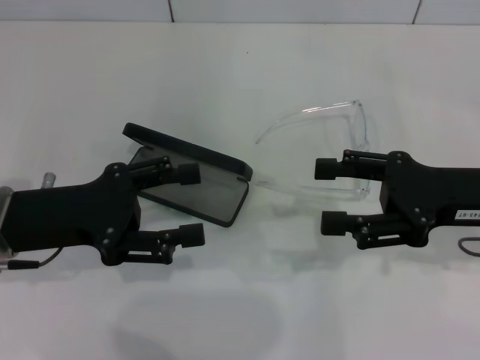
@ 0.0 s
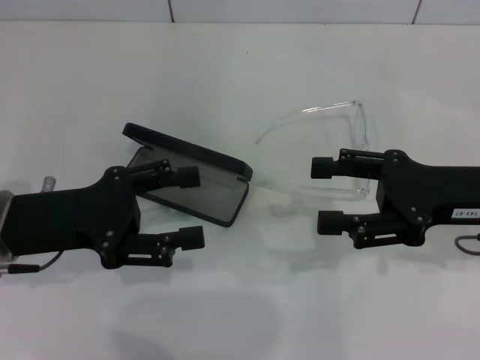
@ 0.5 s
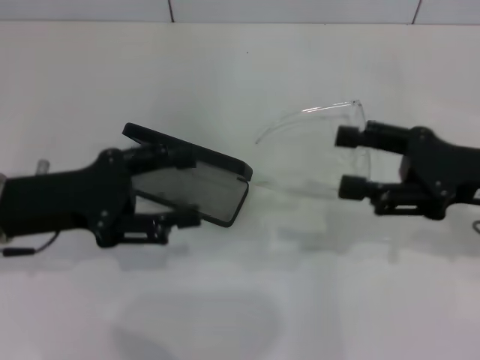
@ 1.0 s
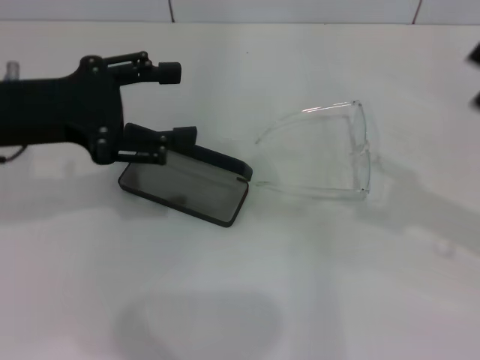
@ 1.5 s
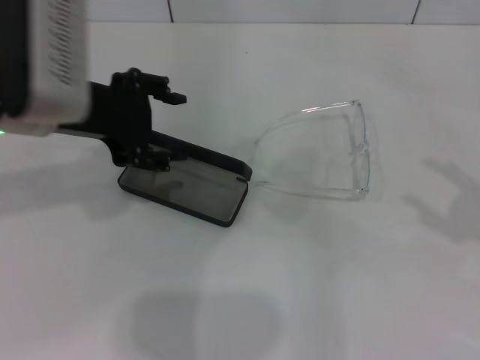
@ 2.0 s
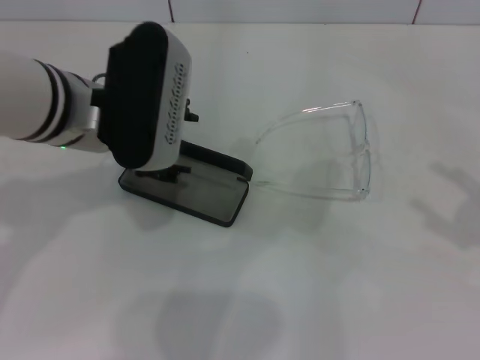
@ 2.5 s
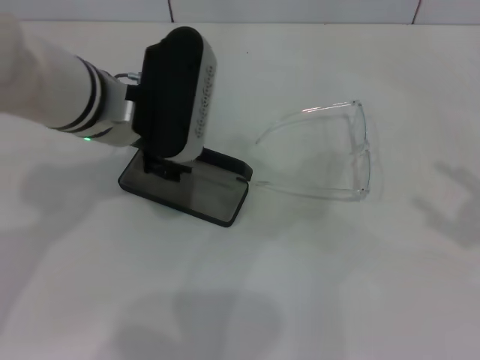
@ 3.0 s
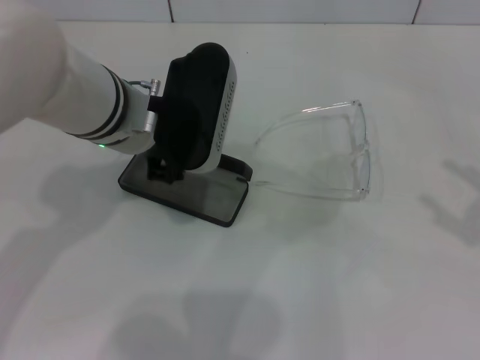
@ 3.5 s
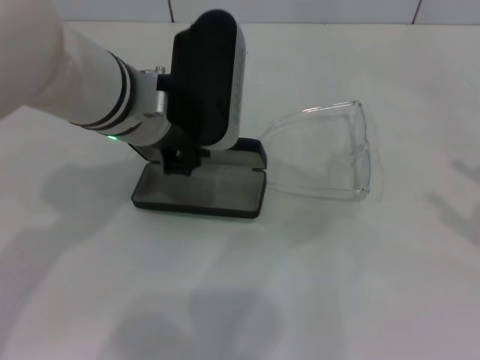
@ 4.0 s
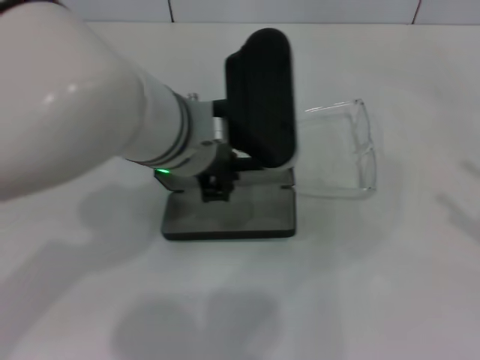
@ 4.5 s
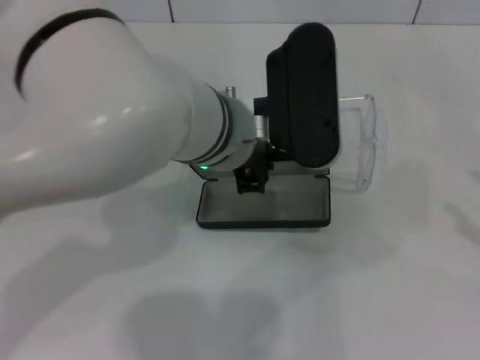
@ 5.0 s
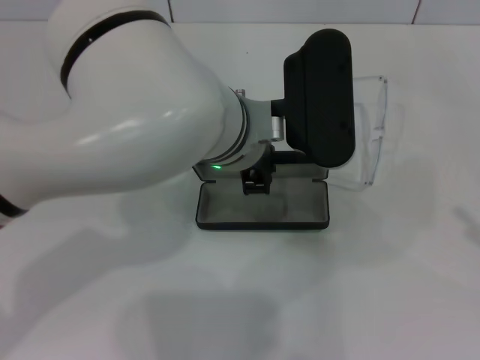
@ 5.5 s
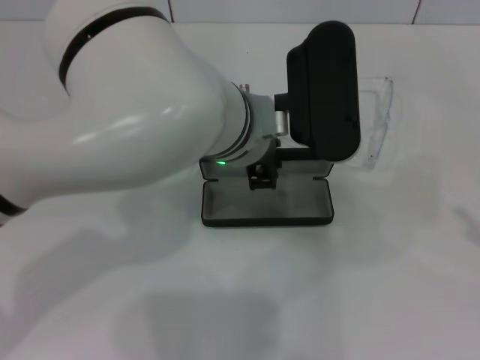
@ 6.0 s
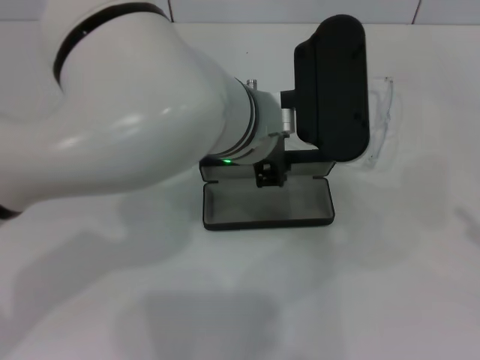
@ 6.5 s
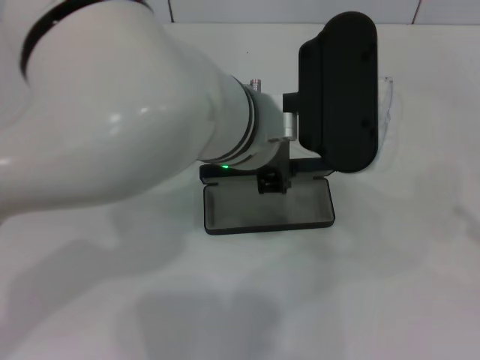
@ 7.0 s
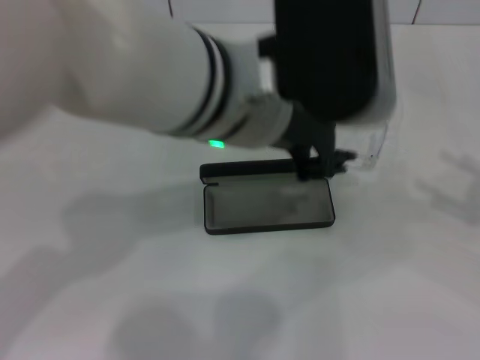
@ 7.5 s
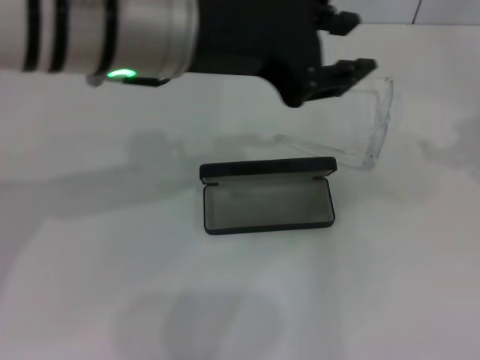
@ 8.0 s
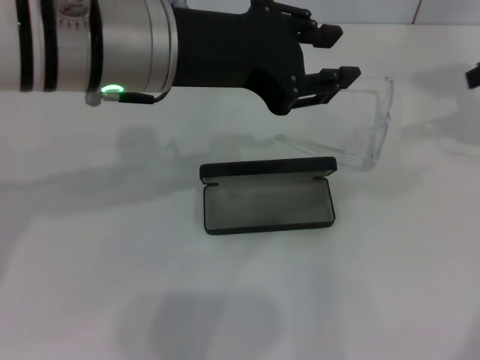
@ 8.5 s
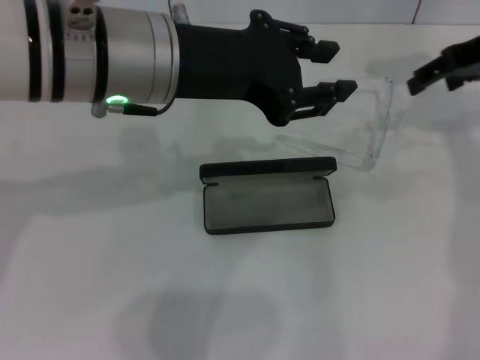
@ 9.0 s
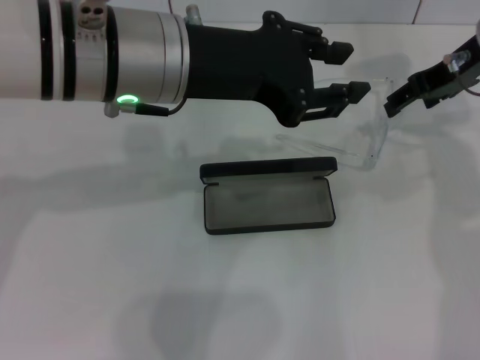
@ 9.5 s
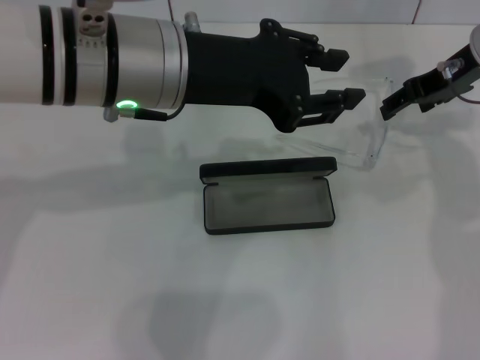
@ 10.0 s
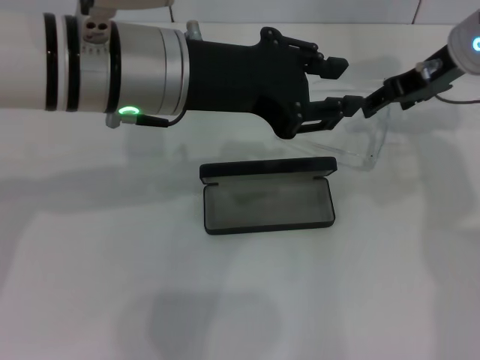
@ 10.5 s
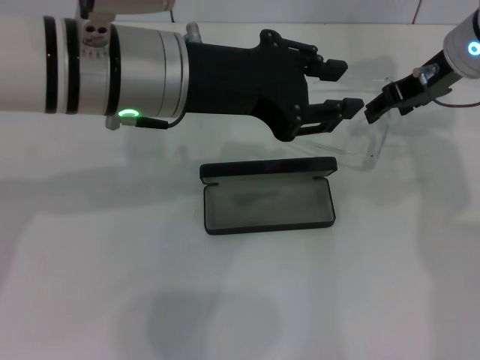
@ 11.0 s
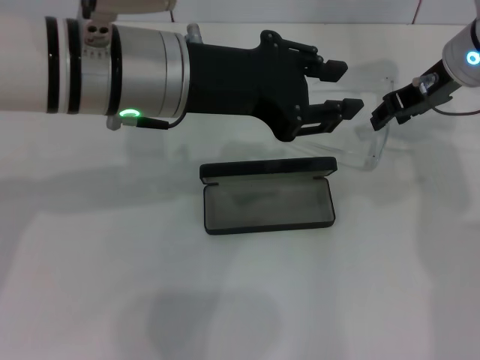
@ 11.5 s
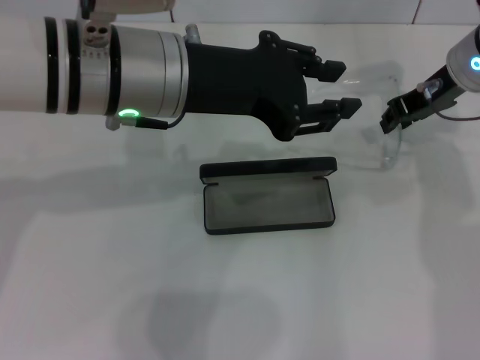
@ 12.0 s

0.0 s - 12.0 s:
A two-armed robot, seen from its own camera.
Step, 0.0 s - 3.5 s: Grab the glasses case with your left hand.
Step, 4.0 s - 6.0 s: Place the glasses case in the center of the table with your left hand.
0.0 s - 2.0 s: The right gripper goes approximately 15 cm to the right and backward, while the left gripper is displaced upward and forward by some 10 cm.
2.0 s - 4.0 s: The left gripper shifts approximately 10 cm to the right, and closes its fingers.
4.0 s - 6.0 s: The left gripper heads to the right, covering roughly 10 cm.
6.0 s - 8.0 s: The left gripper moves upward and to the left, roughly 15 cm; the right gripper moves forward and upward, roughly 20 cm.
8.0 s - 10.0 s: The right gripper shifts some 20 cm to the left, forward and downward.
10.0 s - 12.0 s: The right gripper closes up.

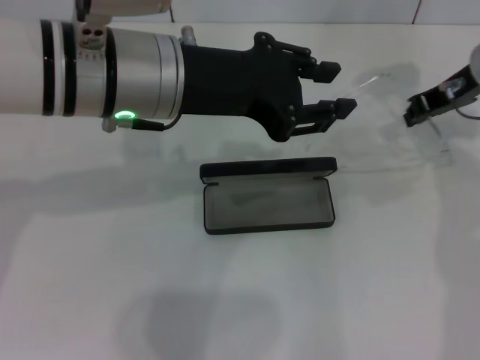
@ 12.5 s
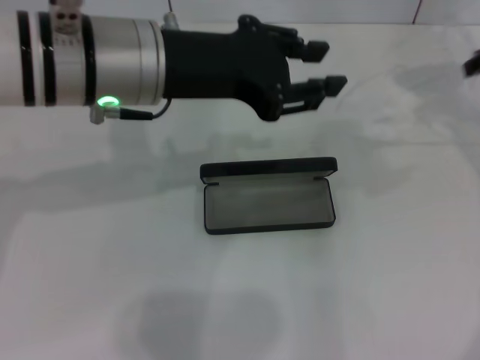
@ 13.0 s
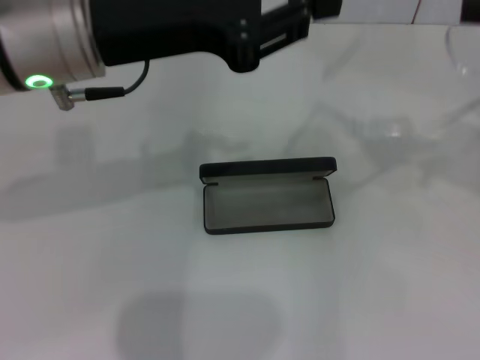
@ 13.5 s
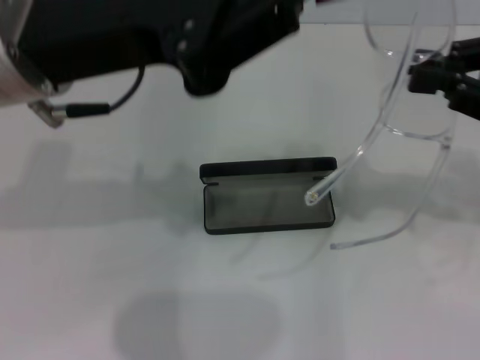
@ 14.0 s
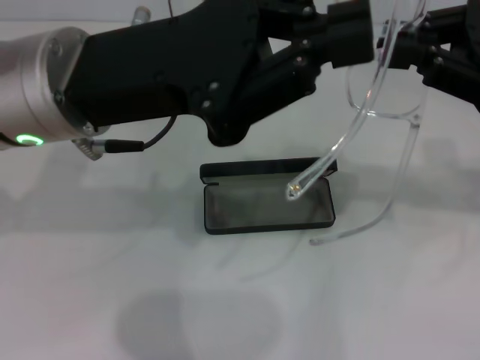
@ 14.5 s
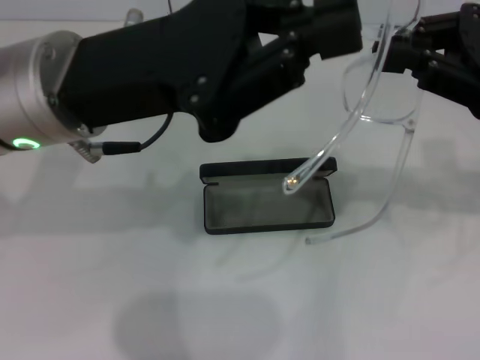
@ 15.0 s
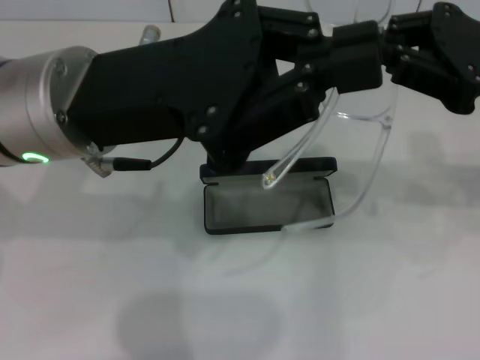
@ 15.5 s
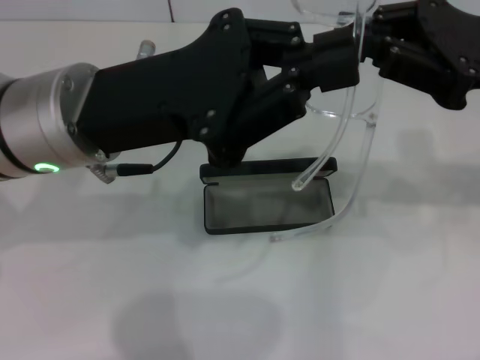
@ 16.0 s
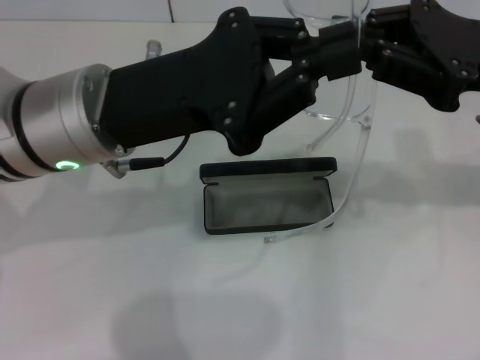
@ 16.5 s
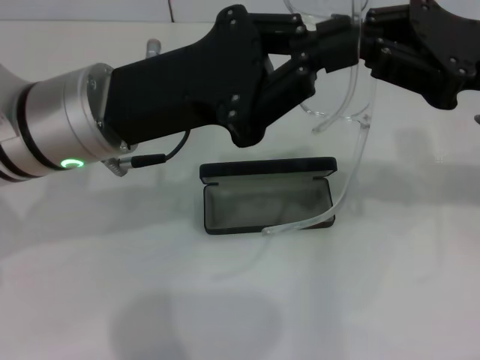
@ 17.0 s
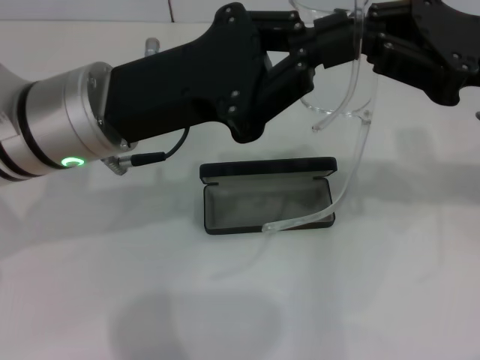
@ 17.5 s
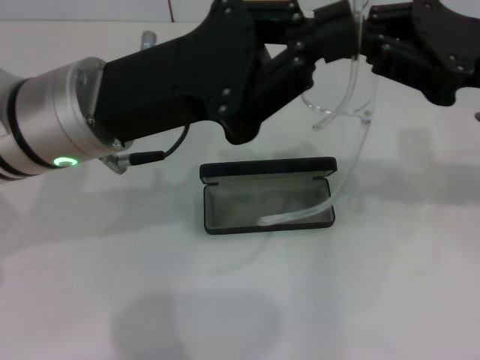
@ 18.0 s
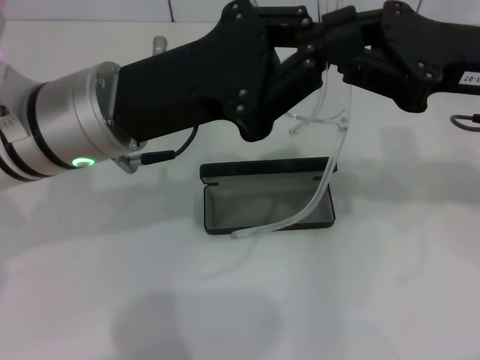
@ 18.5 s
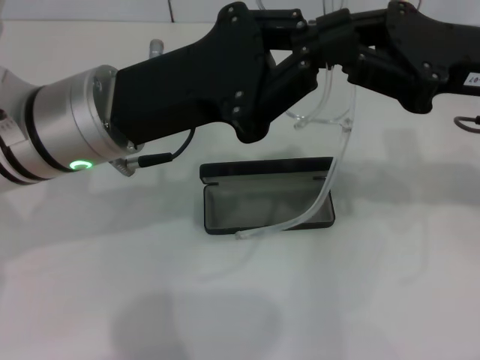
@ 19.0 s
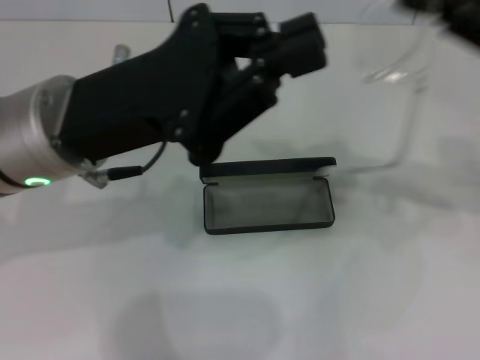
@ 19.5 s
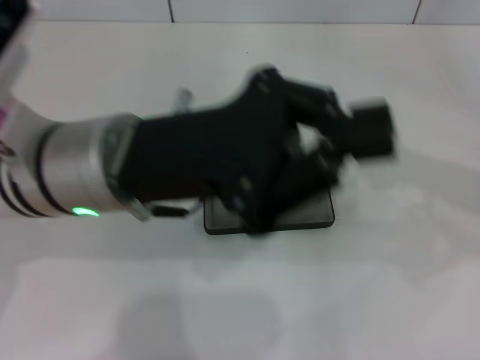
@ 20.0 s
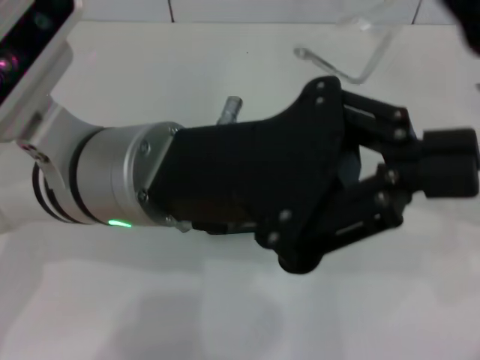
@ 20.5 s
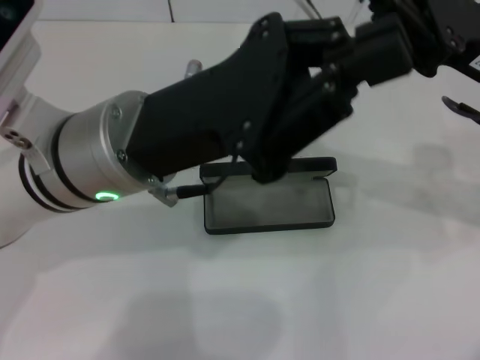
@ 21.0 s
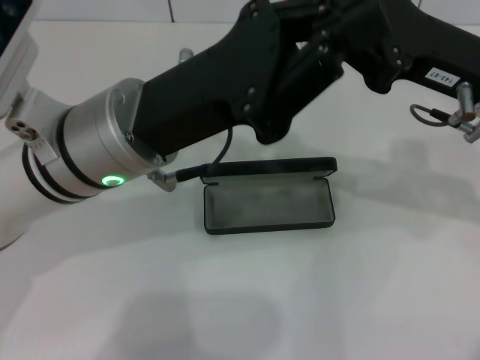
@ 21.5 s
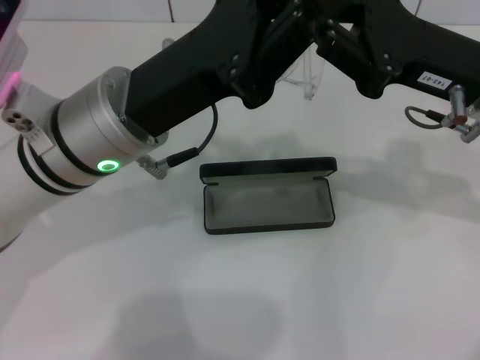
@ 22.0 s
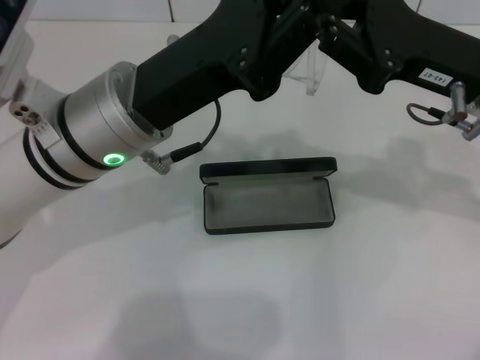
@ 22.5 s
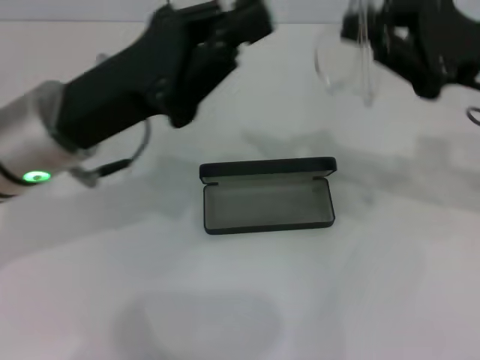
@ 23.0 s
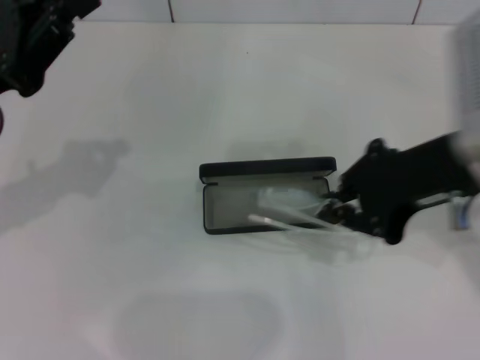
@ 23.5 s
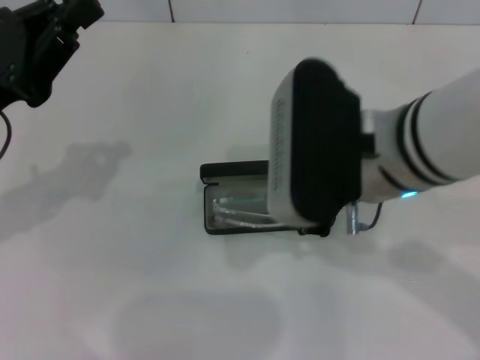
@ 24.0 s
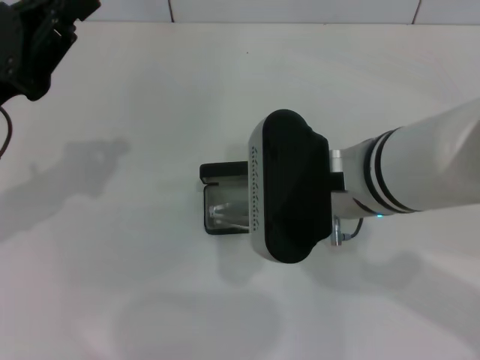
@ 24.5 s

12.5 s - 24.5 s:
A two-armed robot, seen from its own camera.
Step, 12.5 s - 22.5 s: Fold the frame with your left hand.
12.5 s - 14.5 s: The left gripper closes its fingers. Meanwhile the right gripper shifts approximately 15 cm backward and upward.
16.5 s - 18.5 s: There are only small adjustments of the grippers.
18.5 s - 20.5 s: The right gripper reaches approximately 10 cm to the right, then returns. The left gripper shifts by roughly 5 cm.
20.5 s - 22.5 s: The left gripper ends up some 5 cm from where it was.
22.5 s - 24.5 s: The left gripper moves to the left, about 15 cm. The right gripper heads to the left and backward, covering about 15 cm.

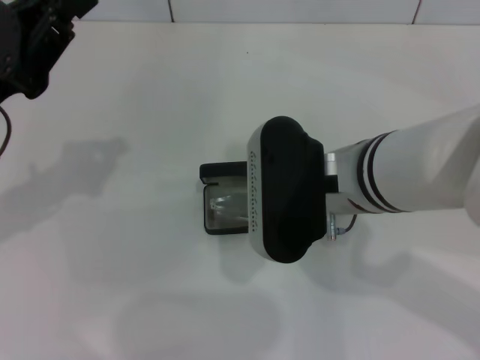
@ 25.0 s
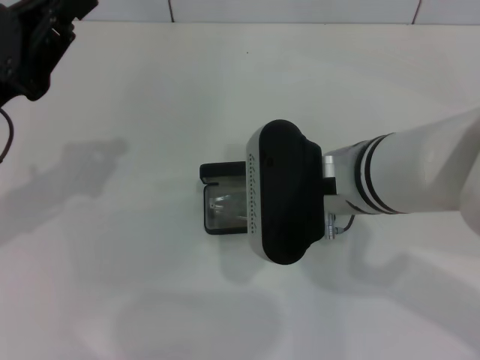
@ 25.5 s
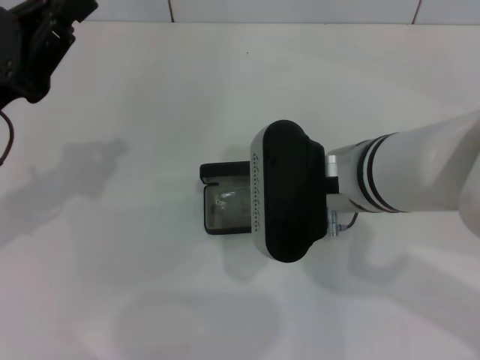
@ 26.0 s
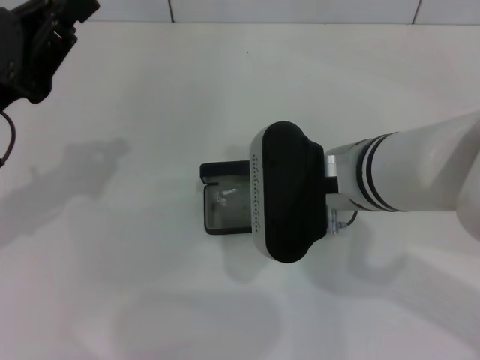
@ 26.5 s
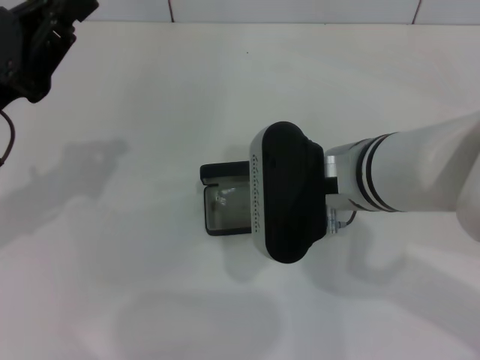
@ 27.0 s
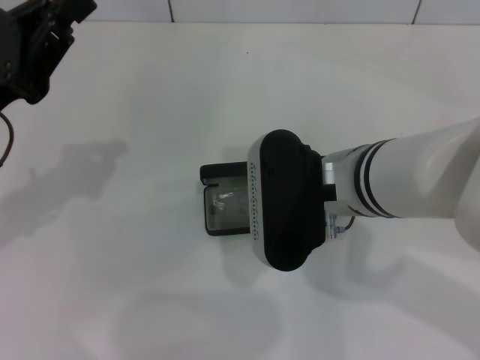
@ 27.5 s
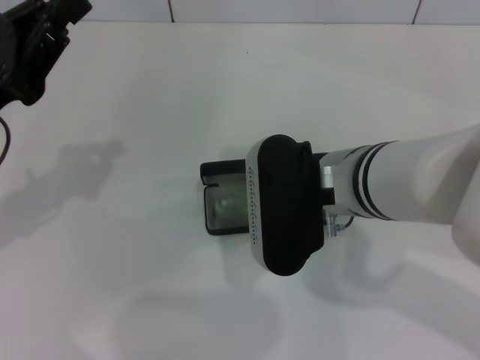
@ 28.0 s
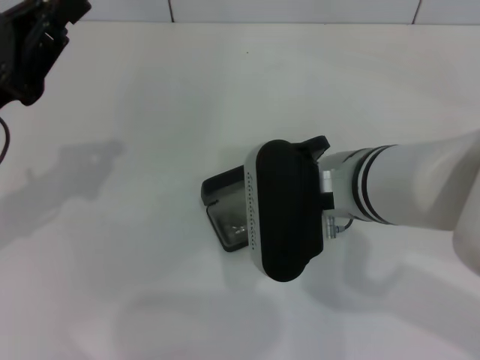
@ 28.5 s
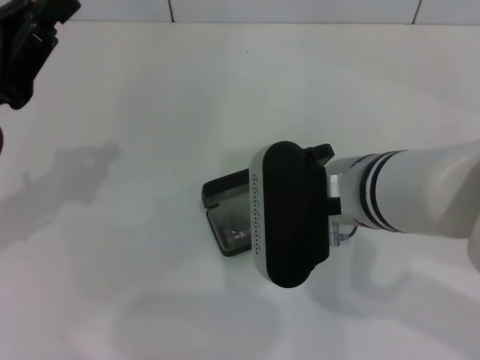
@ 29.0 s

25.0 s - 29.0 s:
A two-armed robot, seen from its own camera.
25.0 s - 27.0 s: Both grippers stay about where they are.
27.0 s - 29.0 s: The grippers stay close to where they were, moving slightly.
